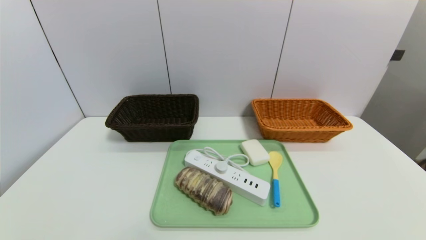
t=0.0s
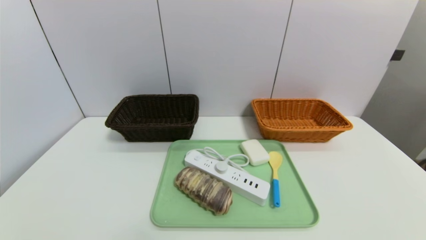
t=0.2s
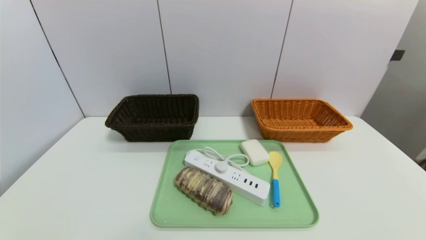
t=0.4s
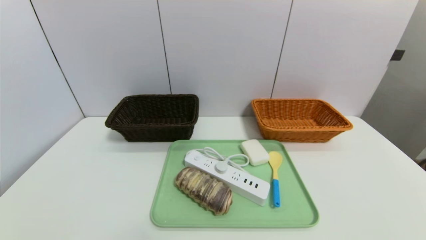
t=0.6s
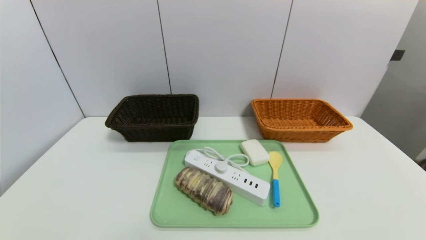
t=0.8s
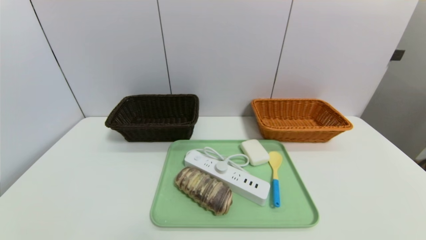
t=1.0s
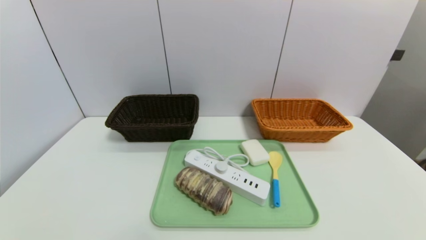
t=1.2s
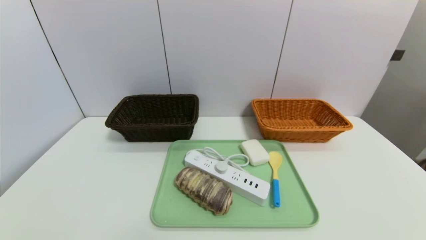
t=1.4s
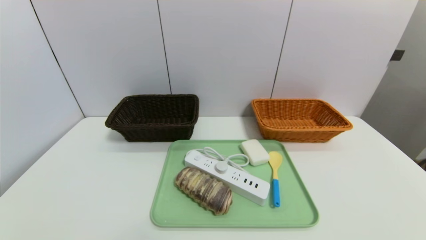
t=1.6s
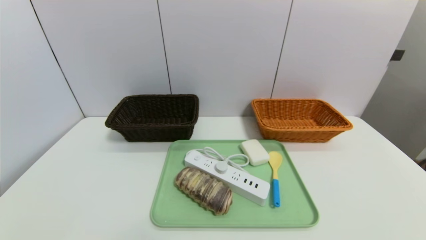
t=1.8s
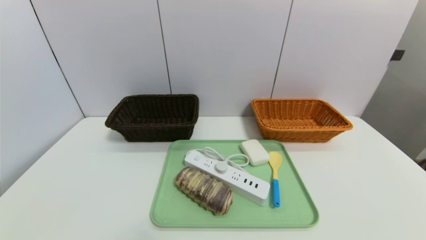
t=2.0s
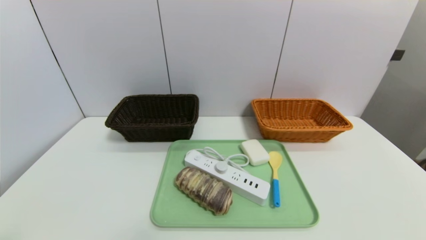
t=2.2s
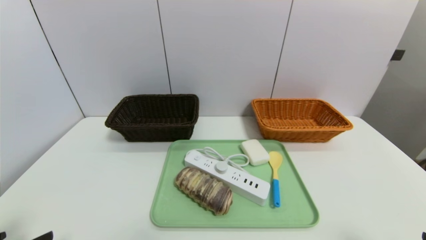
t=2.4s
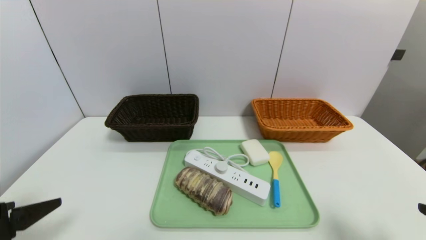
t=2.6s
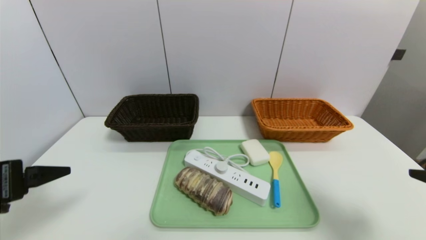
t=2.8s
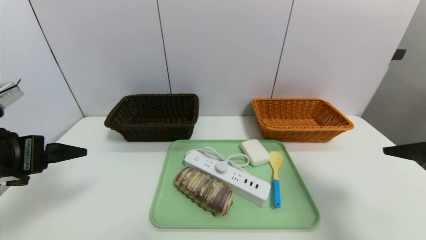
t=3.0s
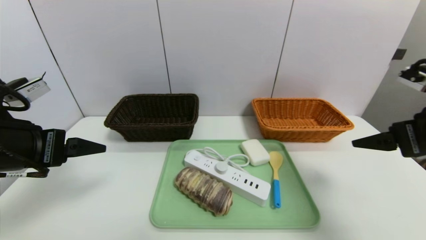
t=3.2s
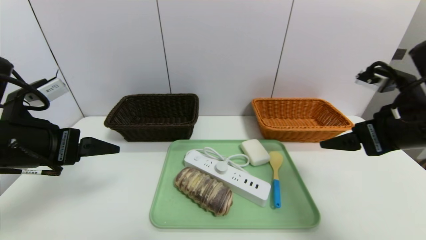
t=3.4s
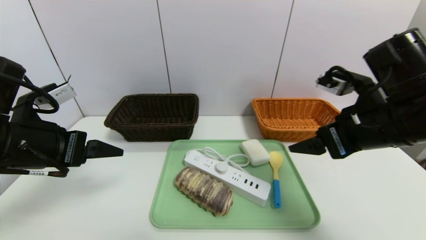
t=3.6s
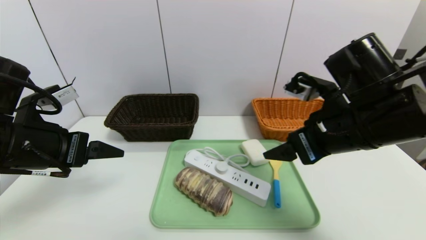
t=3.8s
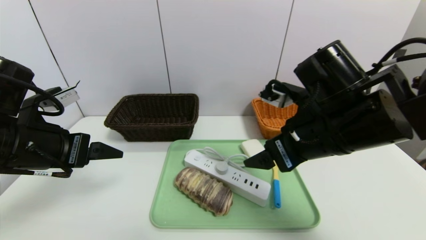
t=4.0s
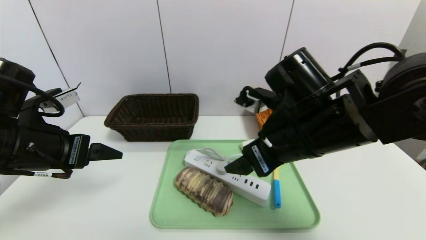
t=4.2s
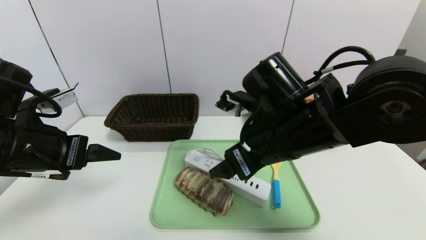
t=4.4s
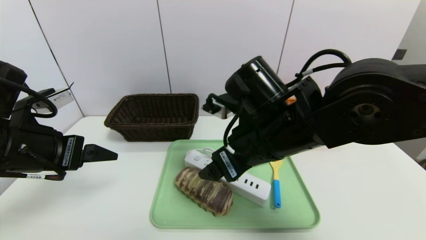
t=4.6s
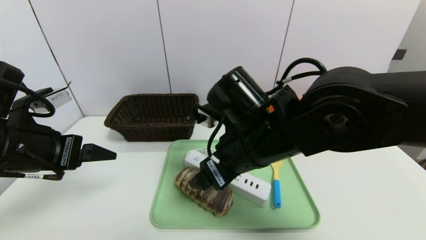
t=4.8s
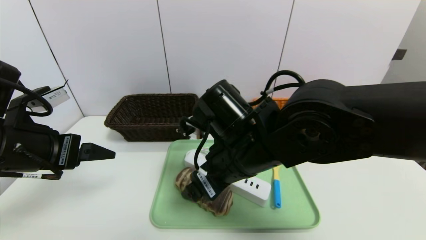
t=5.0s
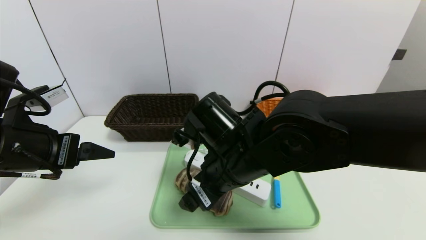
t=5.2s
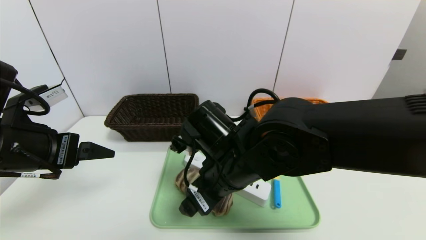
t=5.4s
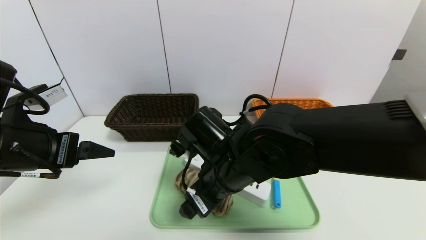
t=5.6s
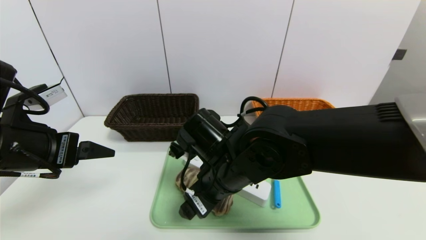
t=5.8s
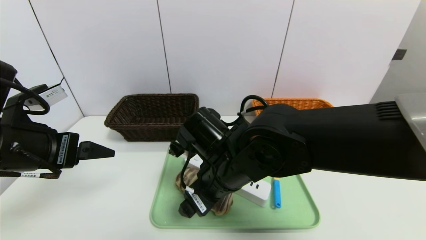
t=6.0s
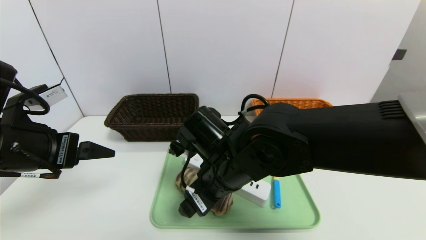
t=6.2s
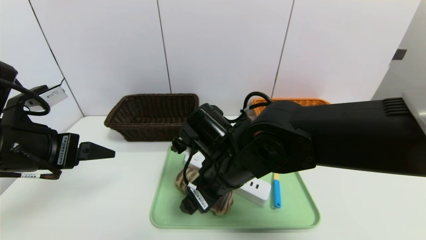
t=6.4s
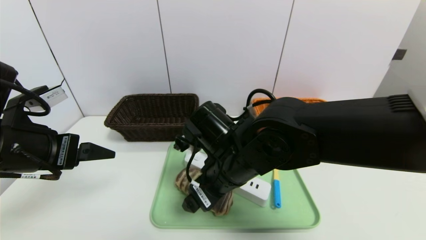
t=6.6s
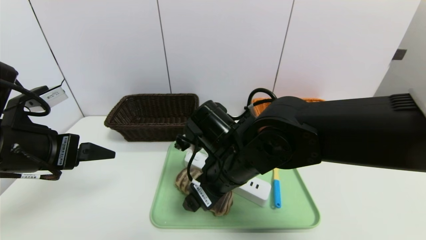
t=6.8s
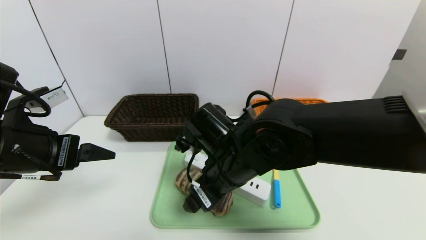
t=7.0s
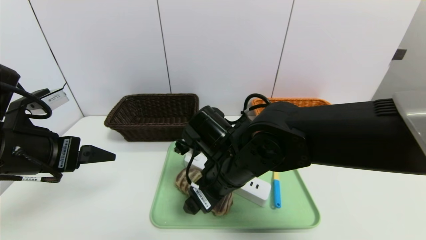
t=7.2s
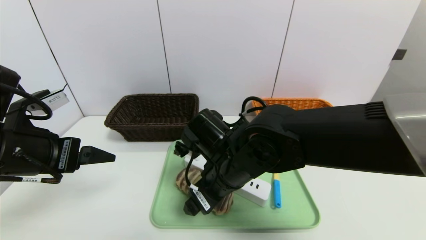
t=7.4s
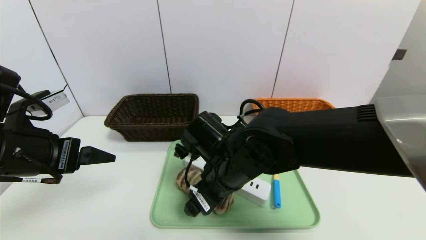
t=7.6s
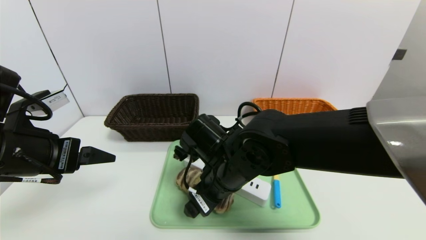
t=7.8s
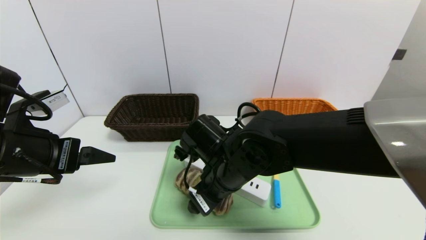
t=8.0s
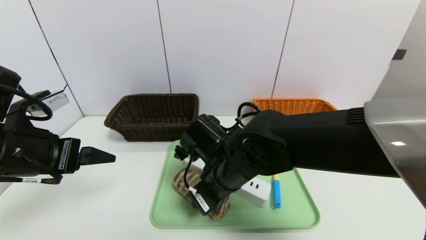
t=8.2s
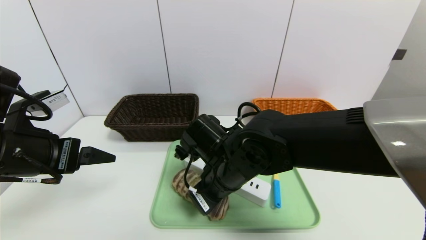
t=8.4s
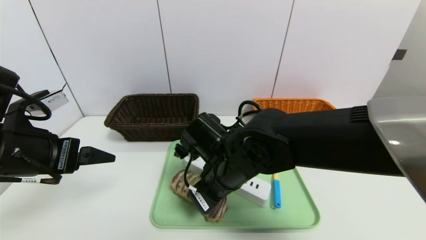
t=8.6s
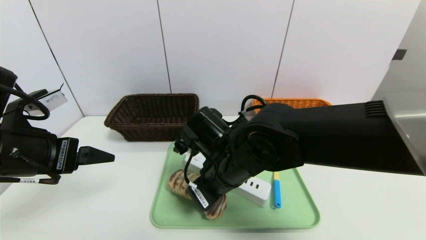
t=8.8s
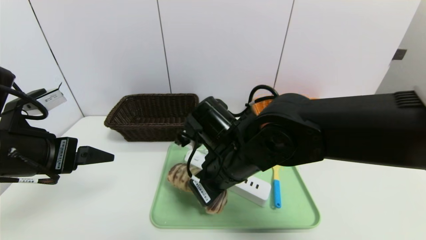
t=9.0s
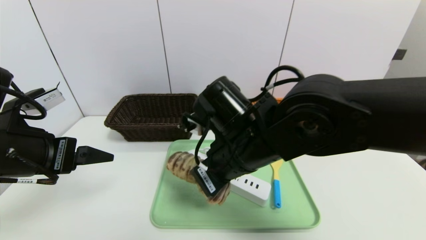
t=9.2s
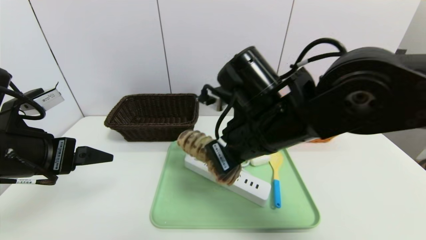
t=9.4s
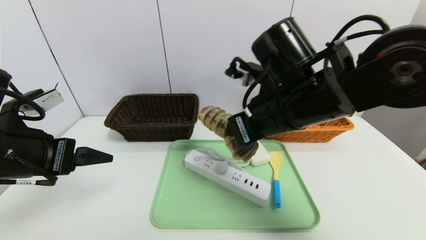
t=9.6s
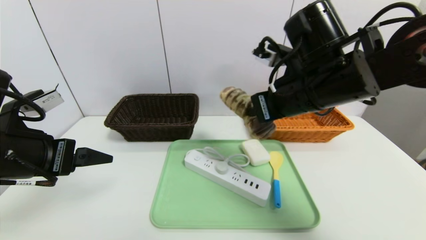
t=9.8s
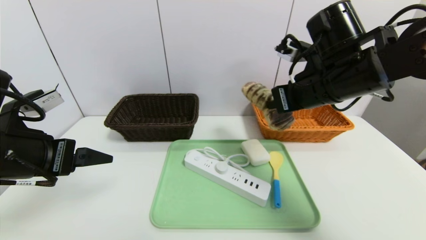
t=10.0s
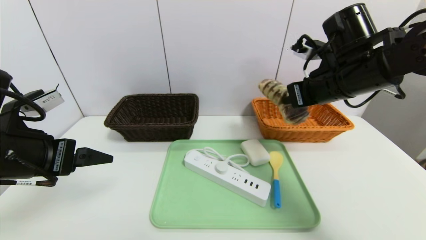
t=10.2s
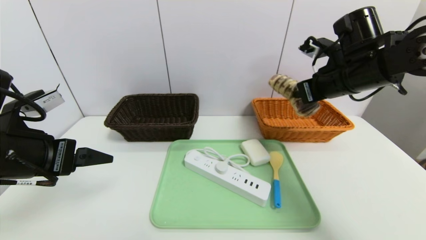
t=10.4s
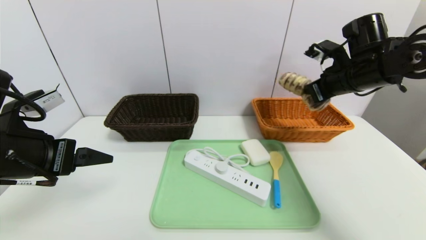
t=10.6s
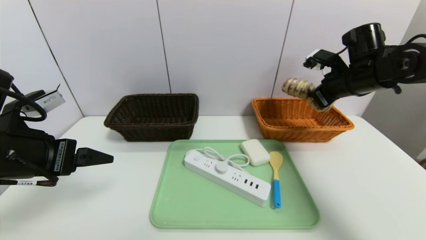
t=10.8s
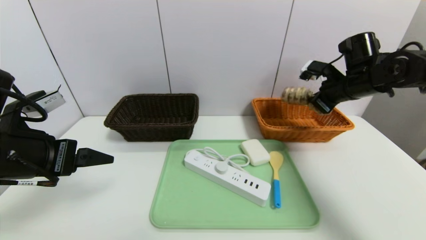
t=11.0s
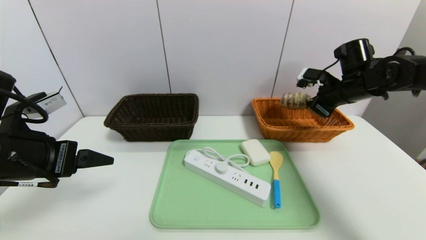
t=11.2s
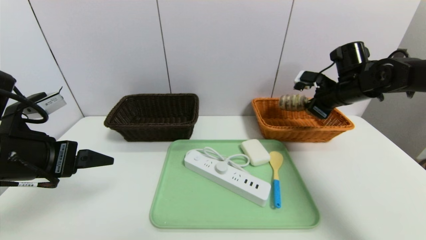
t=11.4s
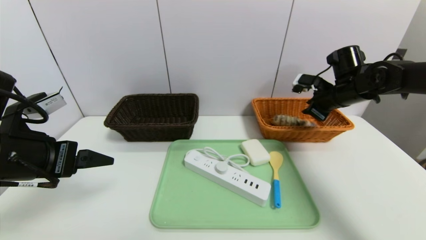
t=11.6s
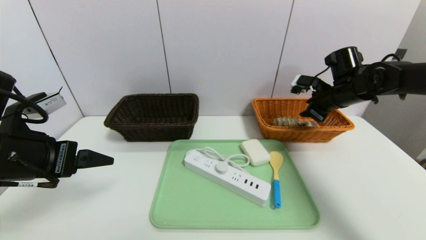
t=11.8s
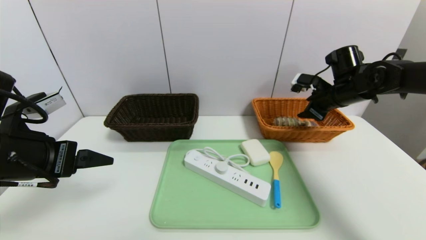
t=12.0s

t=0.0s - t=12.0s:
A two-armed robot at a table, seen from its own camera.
Task of the whole recording: place the food in the right basket with the right gripper, and place the non food items in the left basket with the left gripper.
t=1.6s - t=3.0s: The two grippers go approximately 25 cm forward and upward.
t=3.0s - t=4.4s: The right gripper travels to the left by roughly 25 cm.
t=4.4s - t=6.0s: The right gripper is displaced to the left and downward by some 10 cm.
t=6.0s - t=7.6s: The grippers move only a little.
t=7.6s - t=9.0s: The right gripper closes up.
t=9.0s - t=10.4s: The right gripper is displaced to the right, upward and forward by roughly 25 cm.
t=10.4s - t=12.0s: The right gripper goes some 10 cm forward, downward and to the right, and opens up.

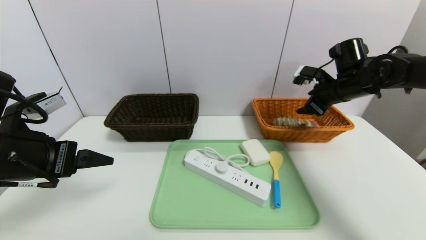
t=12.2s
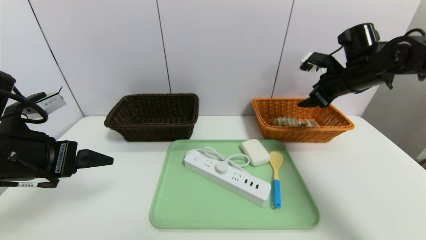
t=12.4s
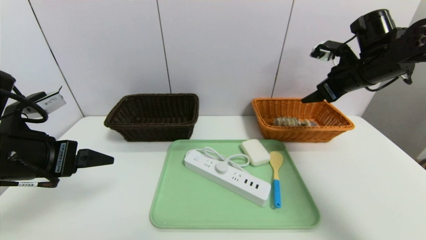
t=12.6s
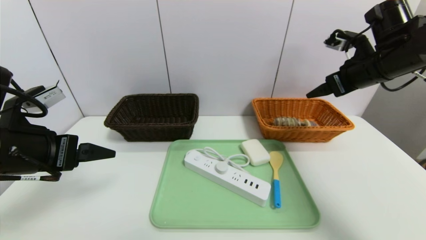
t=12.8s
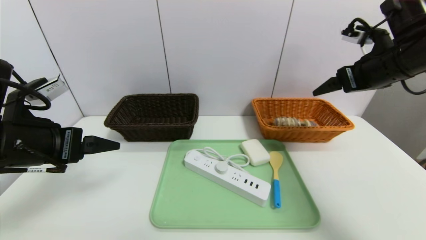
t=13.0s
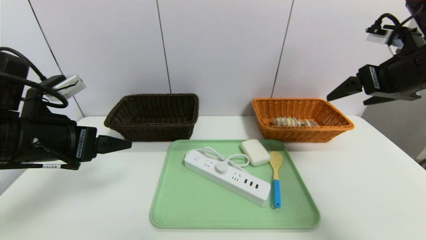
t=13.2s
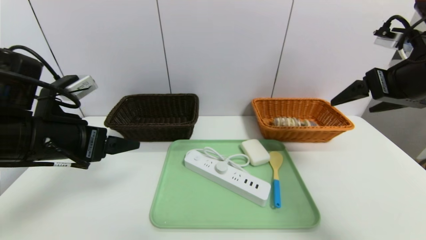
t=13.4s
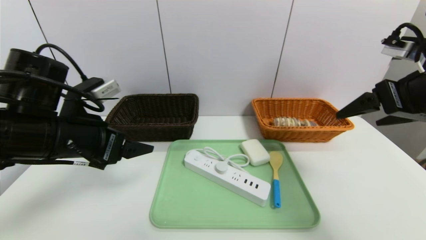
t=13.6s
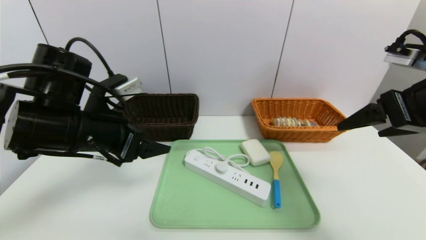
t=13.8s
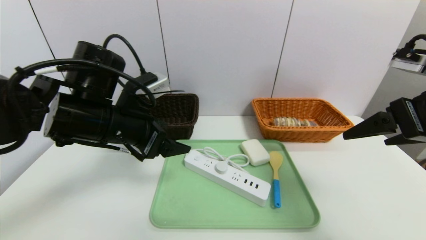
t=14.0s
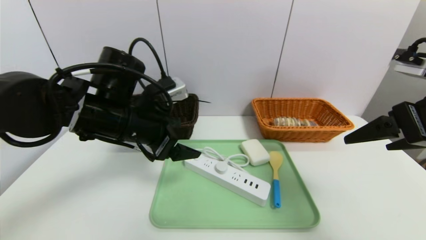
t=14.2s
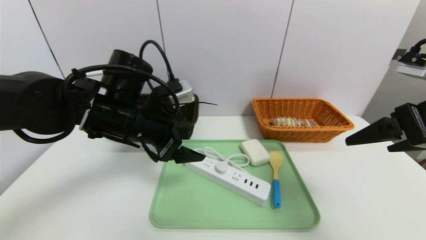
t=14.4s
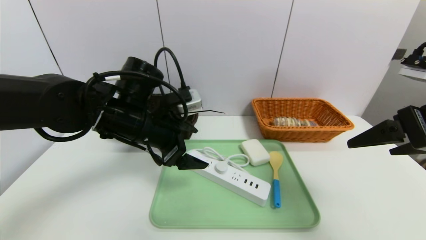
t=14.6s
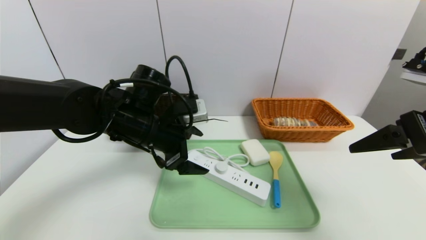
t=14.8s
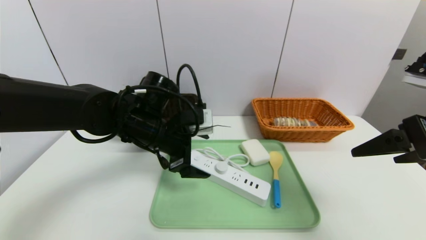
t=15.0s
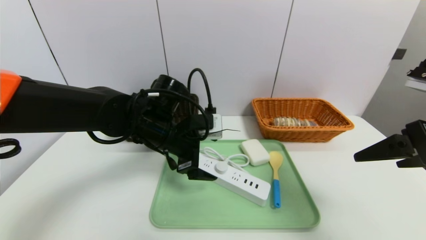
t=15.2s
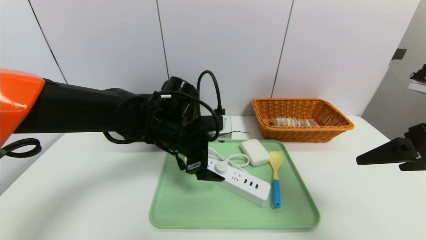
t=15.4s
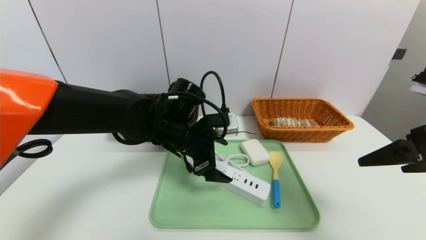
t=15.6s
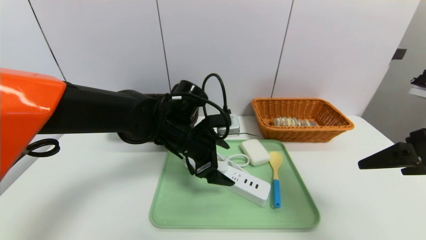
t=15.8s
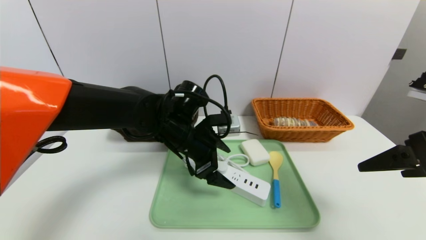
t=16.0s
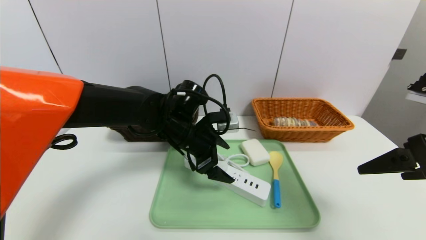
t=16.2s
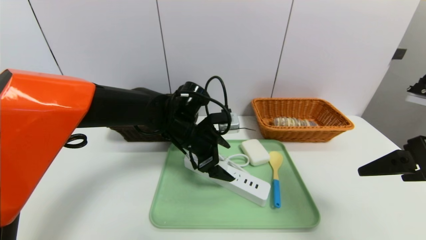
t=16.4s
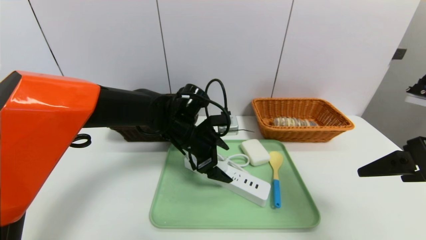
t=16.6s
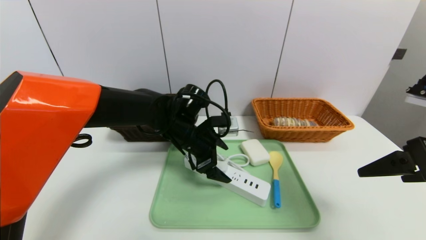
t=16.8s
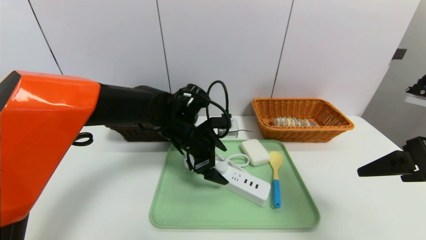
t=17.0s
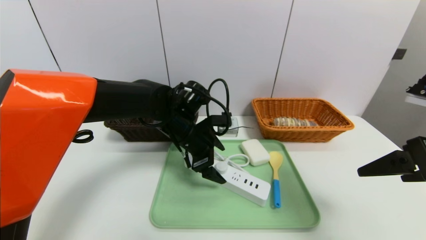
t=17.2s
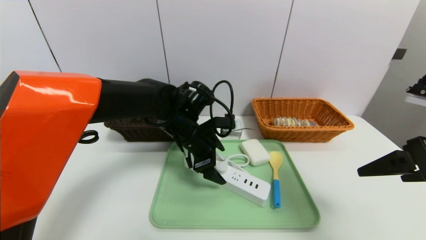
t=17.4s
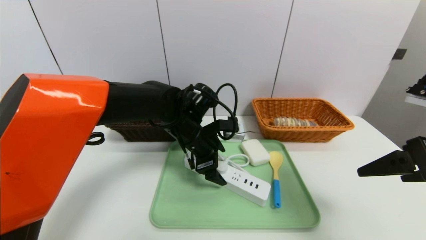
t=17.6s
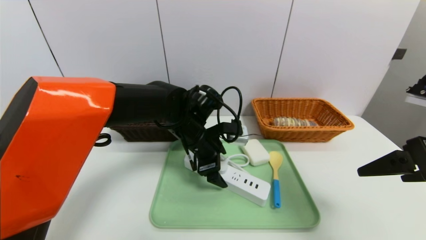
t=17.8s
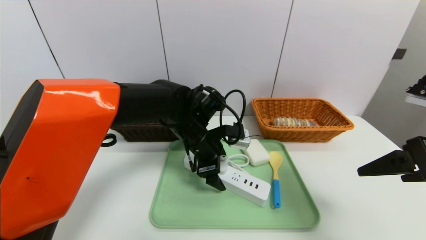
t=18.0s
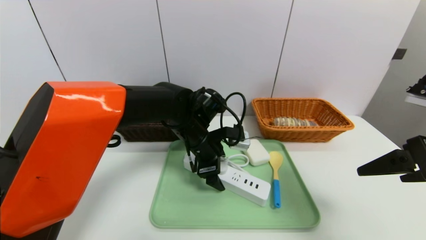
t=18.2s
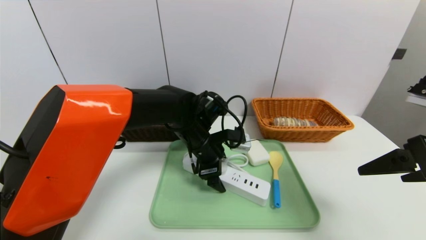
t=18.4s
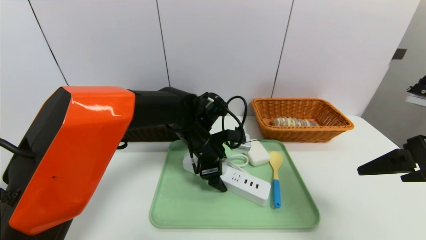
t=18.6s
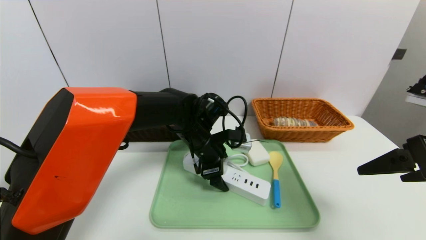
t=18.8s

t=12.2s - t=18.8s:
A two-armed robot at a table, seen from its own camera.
Task of the whole recording: place the food in the right basket with the right gripper, and place the non food items in the left basket with the left gripper.
t=12.2s - t=13.8s: The left gripper moves to the right and forward, some 10 cm; the right gripper heads backward, covering roughly 20 cm.
t=13.8s - t=15.4s: The left gripper is displaced to the right, forward and downward by roughly 15 cm.
t=15.4s - t=17.2s: There are only small adjustments of the grippers.
